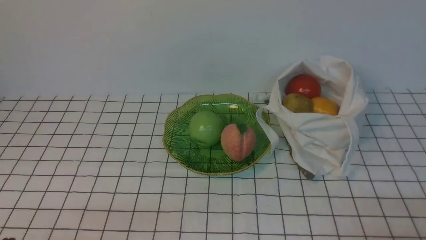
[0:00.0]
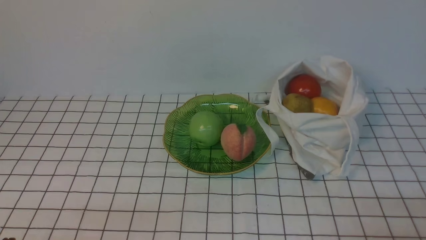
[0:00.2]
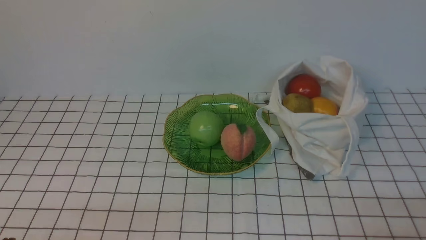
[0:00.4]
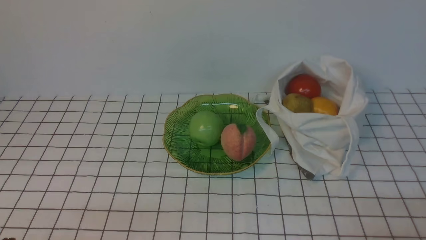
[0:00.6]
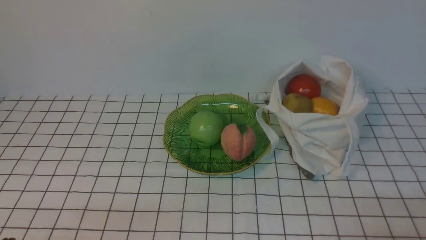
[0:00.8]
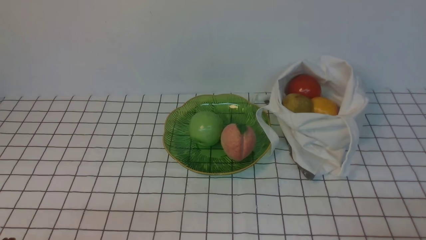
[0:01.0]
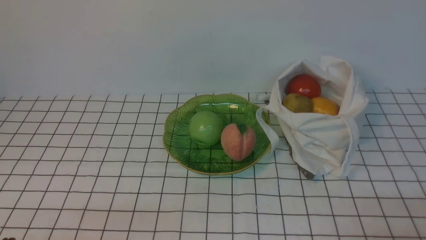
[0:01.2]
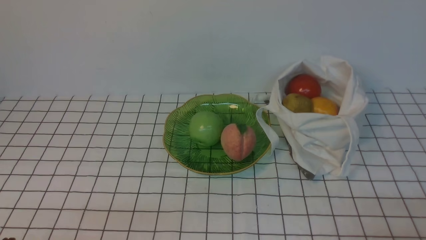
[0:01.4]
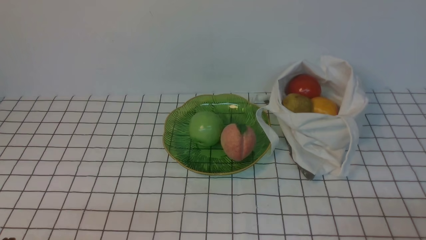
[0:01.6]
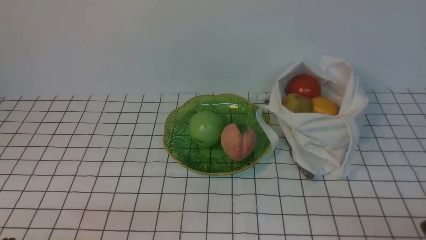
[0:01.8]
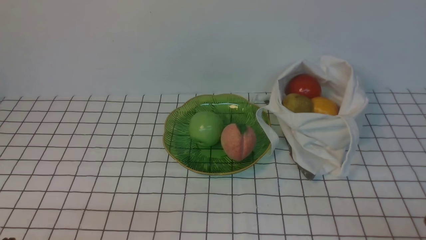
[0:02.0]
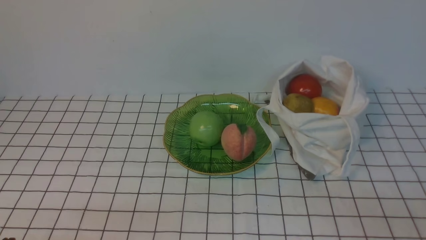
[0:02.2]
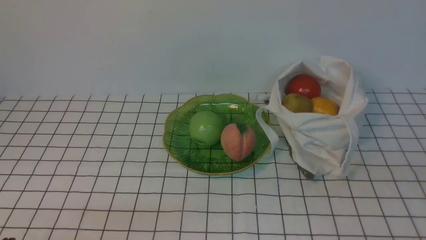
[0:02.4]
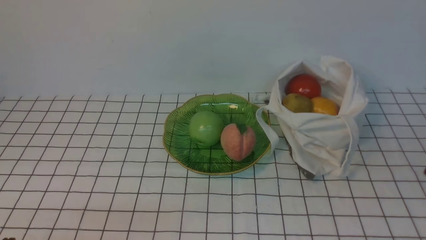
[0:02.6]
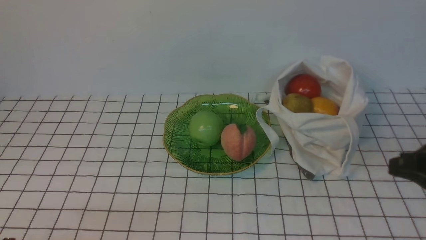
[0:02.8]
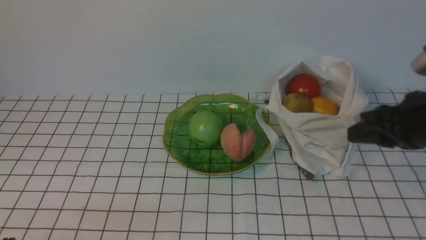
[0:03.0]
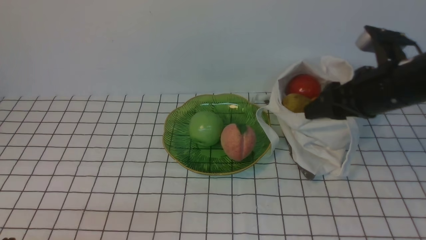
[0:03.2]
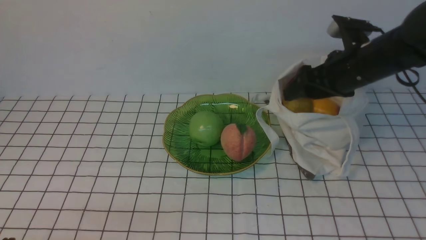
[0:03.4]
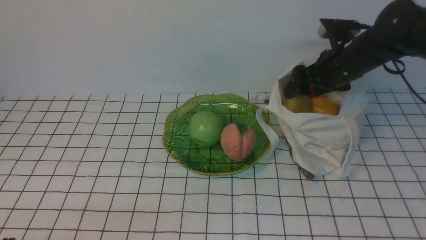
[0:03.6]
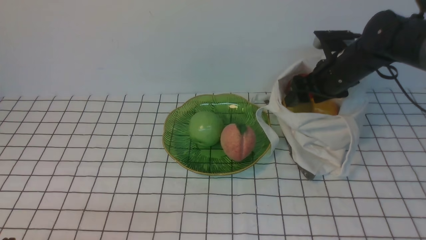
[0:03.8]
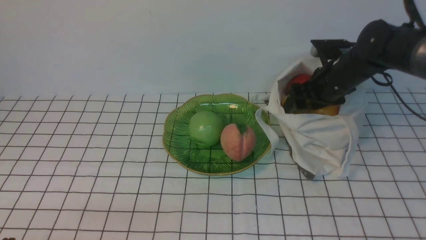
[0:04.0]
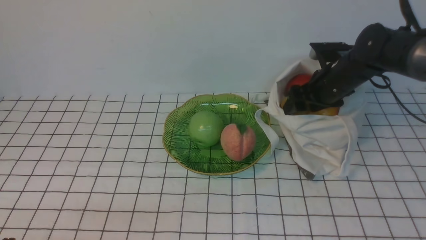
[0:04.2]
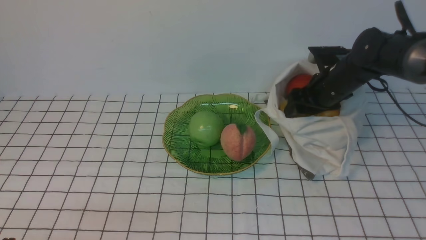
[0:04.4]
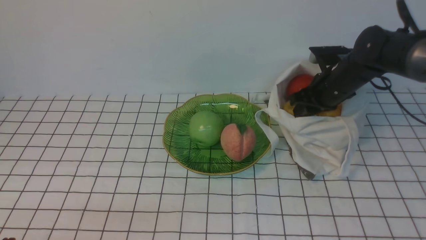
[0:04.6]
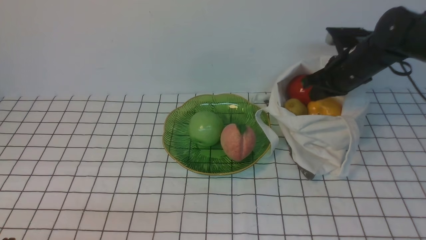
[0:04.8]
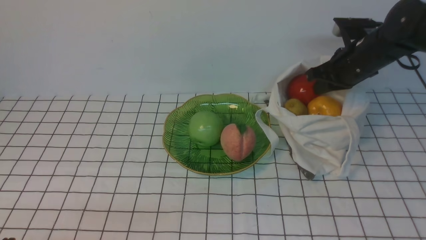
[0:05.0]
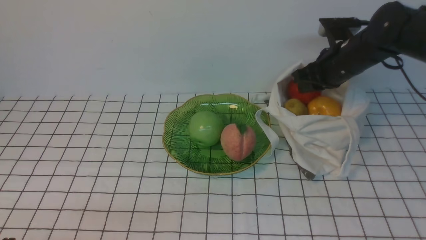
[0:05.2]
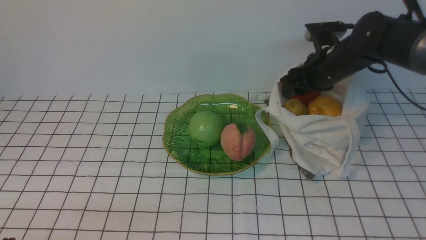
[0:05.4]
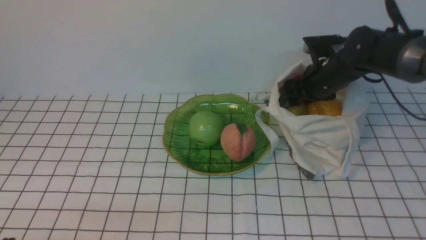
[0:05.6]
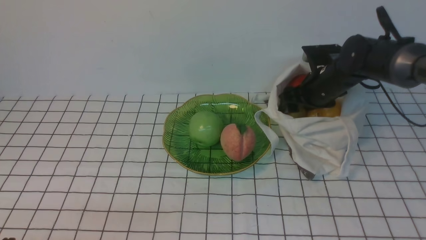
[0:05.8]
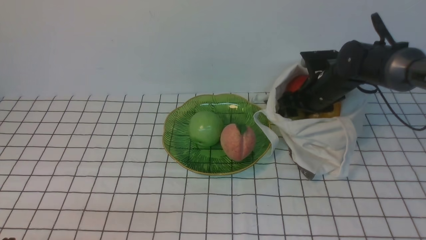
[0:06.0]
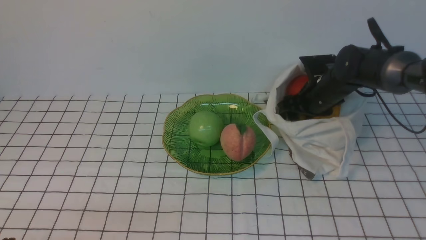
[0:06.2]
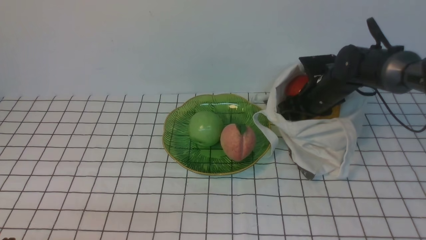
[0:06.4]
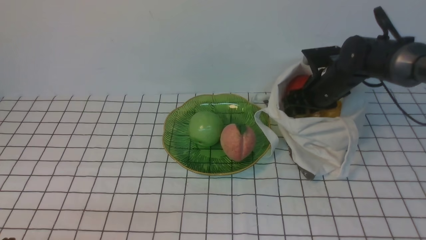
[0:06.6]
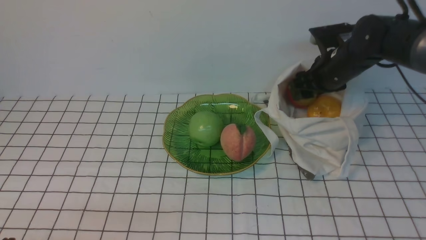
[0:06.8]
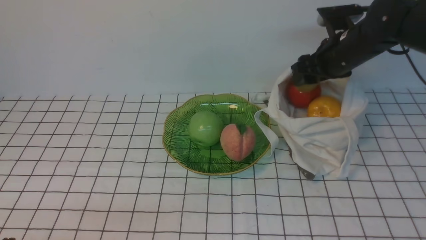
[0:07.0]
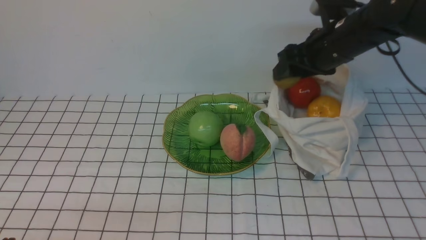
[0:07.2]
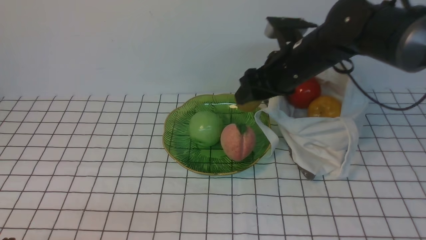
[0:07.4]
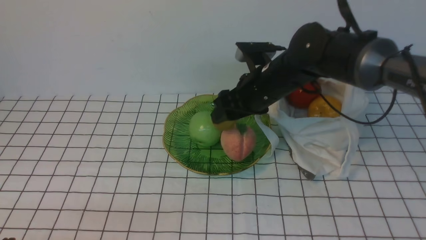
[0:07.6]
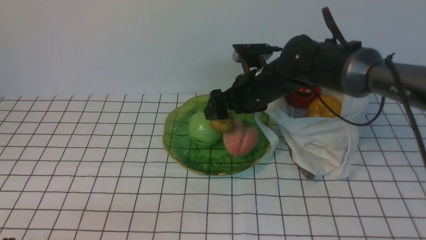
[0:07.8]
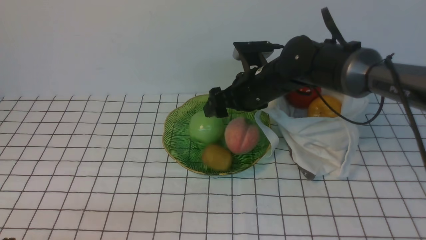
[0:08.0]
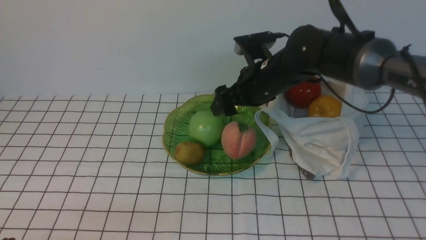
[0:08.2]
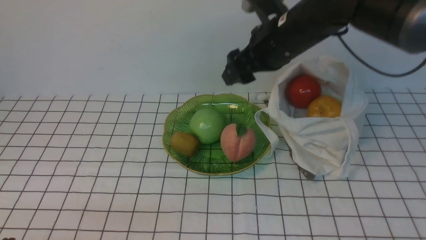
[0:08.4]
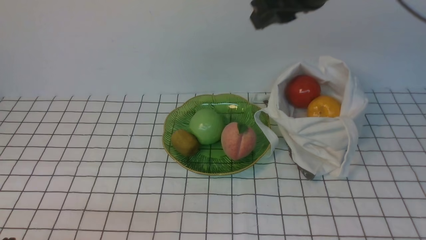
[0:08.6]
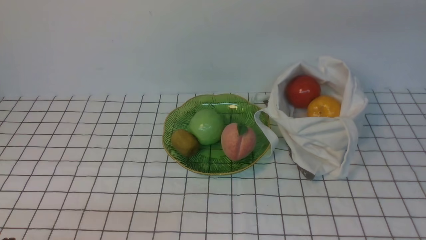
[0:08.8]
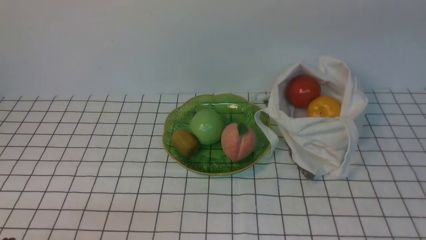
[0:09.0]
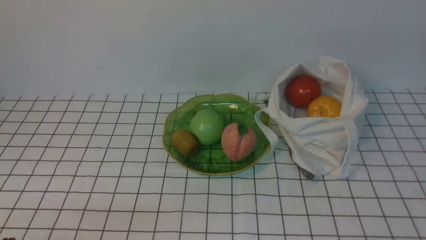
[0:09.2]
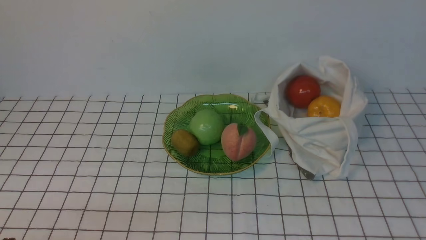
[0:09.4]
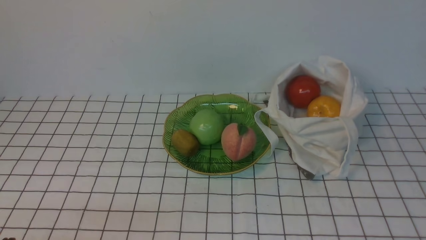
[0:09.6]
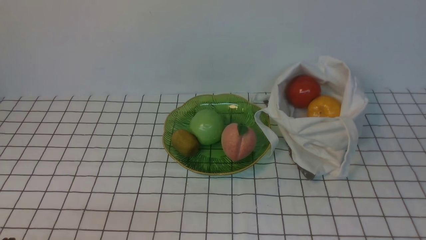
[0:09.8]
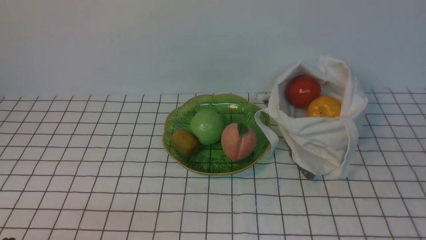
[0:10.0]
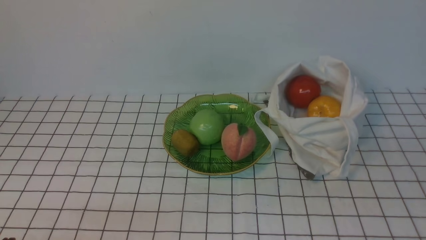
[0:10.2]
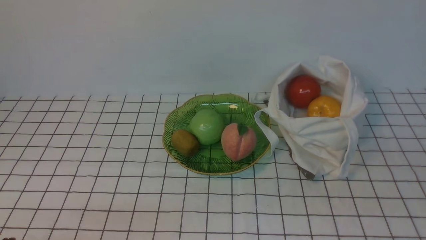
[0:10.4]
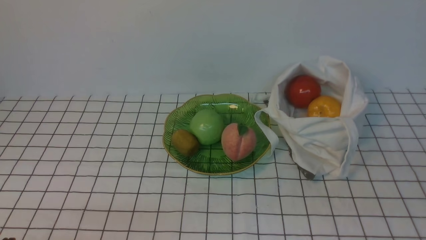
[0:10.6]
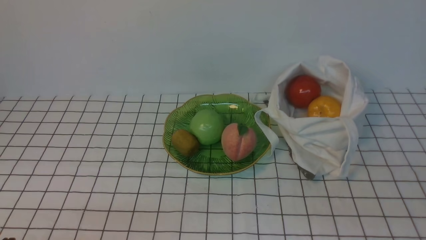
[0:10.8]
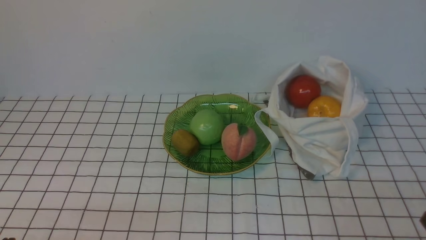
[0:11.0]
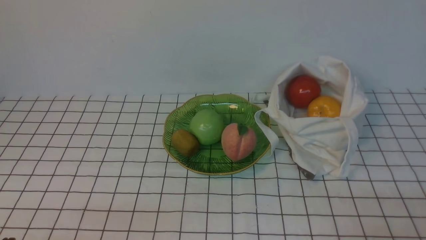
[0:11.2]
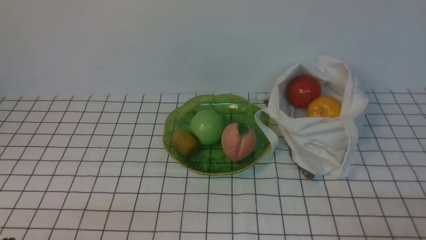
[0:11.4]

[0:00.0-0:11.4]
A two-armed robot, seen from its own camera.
Step, 0:00.0 to 0:06.8: use the right arm to grab a kiwi from the bag.
Step, 0:07.0 to 0:08.2: use the right arm to put the kiwi into the empty plate on the left.
0:01.4 to 0:02.8: The right gripper shifts about 15 cm upward and forward.
0:02.8 to 0:04.2: The right gripper is displaced forward by some 30 cm, and opens its fingers.
0:04.2 to 0:05.6: The right gripper closes, then reopens.
0:05.6 to 0:07.2: The right gripper moves upward, approximately 5 cm.
0:07.2 to 0:08.6: The right gripper travels upward, to the left and backward by about 15 cm.
0:08.6 to 0:10.0: The right gripper goes roughly 35 cm backward and to the right, and closes up.

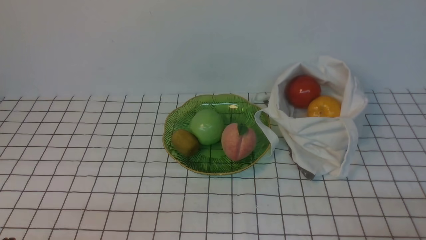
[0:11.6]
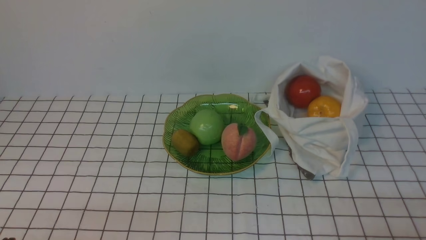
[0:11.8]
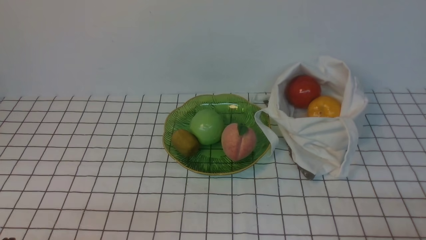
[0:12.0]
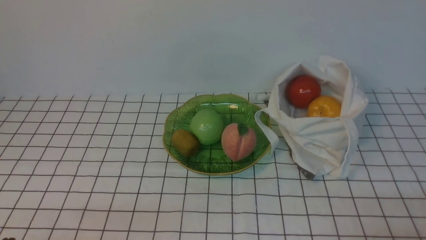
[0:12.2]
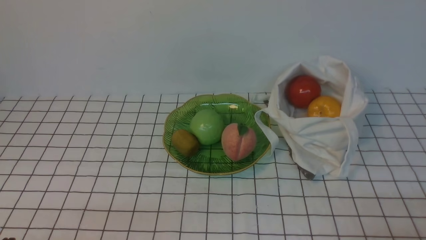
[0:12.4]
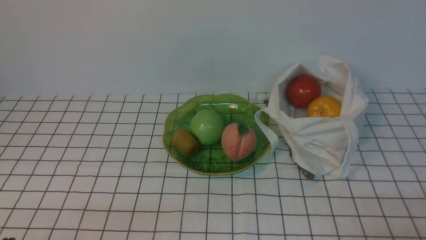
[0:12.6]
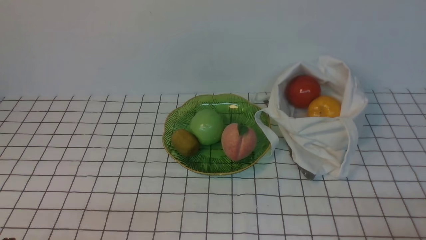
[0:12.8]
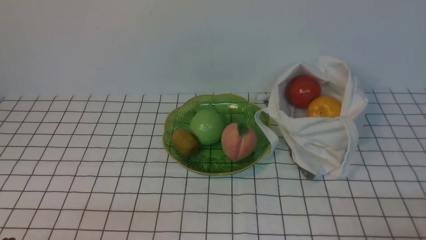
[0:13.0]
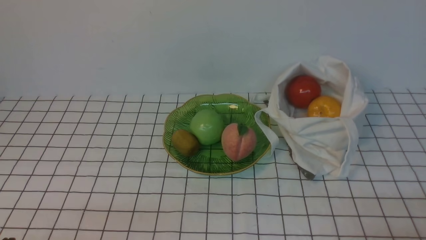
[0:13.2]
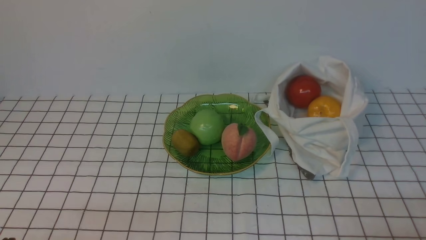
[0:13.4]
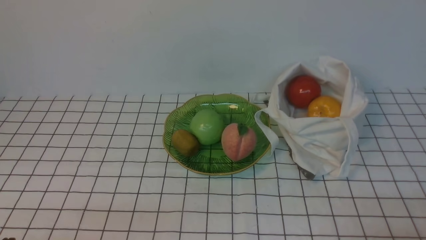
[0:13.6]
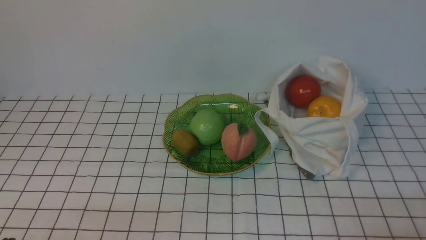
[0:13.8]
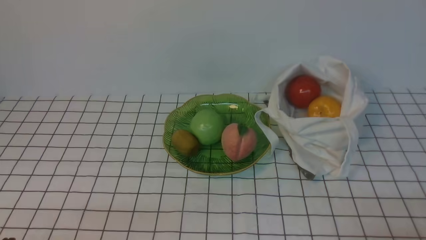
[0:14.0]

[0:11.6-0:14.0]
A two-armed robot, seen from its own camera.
0:12.8 to 0:14.0: The two grippers keep their place.

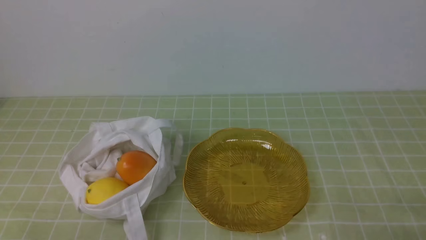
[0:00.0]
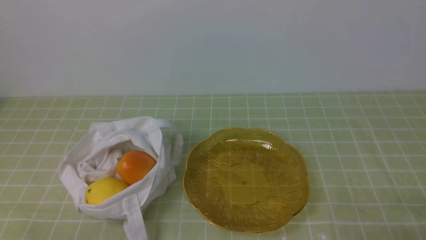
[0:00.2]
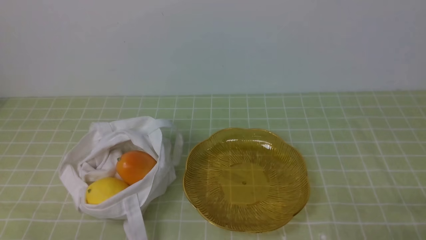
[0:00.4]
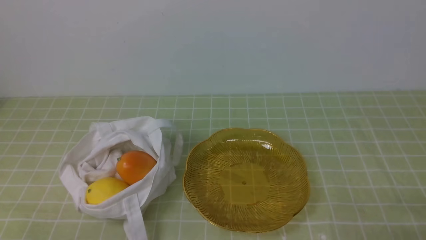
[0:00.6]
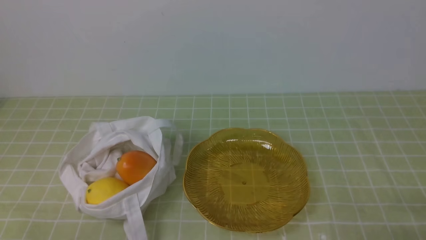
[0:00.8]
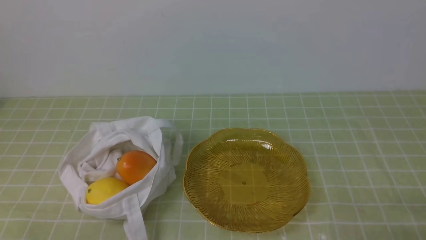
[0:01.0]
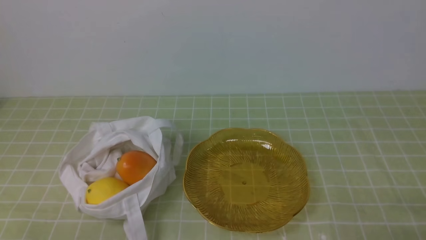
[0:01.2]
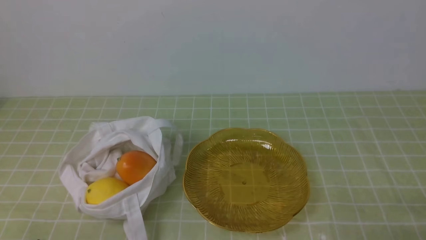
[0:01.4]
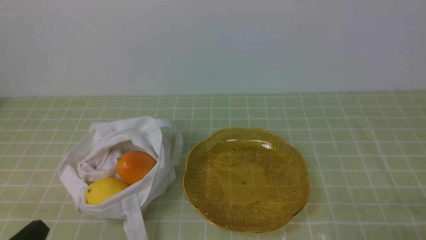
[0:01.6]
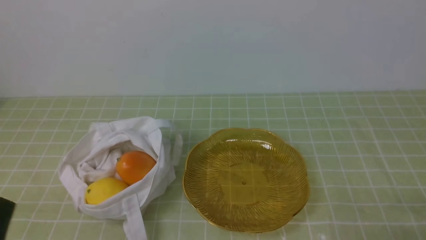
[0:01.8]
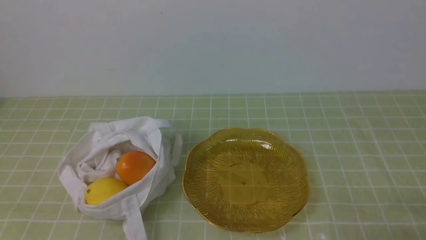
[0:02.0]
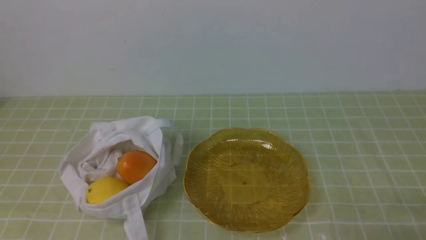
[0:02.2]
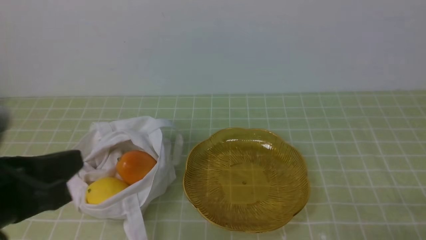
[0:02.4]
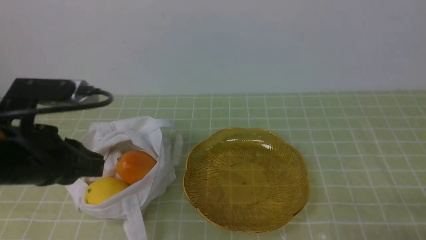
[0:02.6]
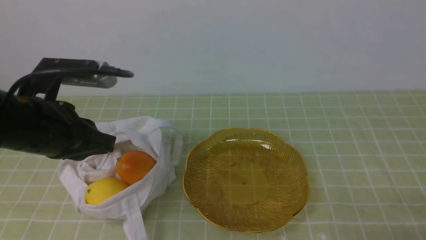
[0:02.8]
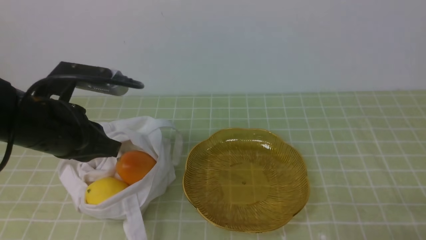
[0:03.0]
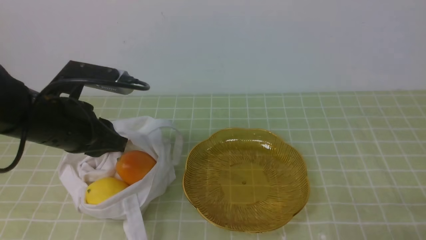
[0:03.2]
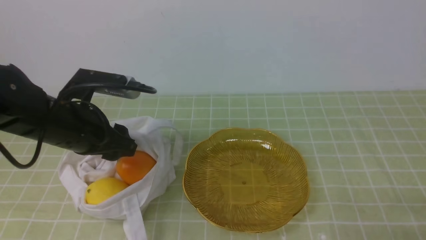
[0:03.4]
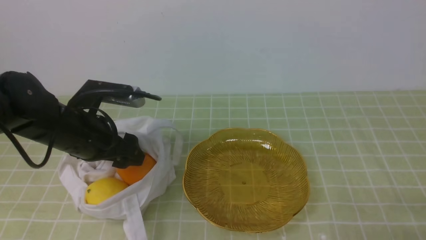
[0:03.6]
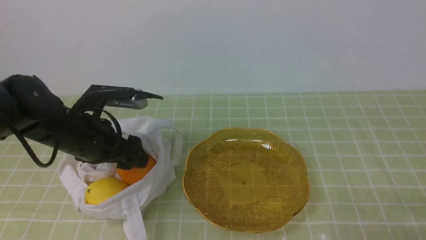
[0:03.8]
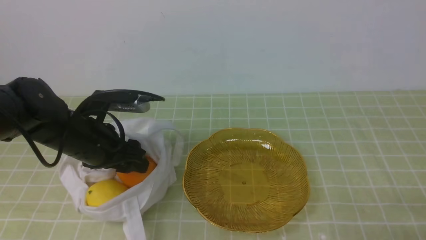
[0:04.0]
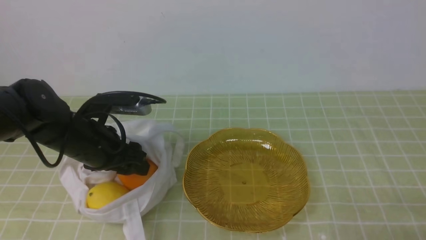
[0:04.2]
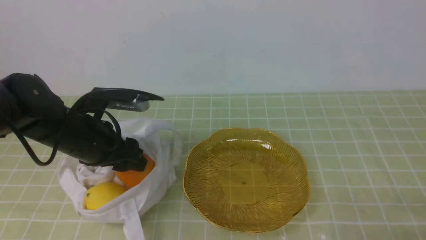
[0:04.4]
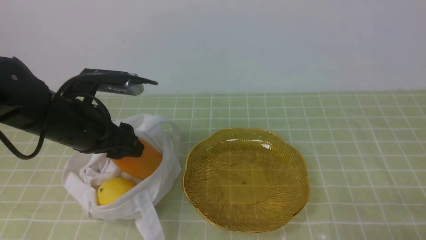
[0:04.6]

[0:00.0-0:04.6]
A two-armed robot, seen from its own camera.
Step, 0:00.0 to 0:04.4: use the left arm to grab a mango from the bag.
0:01.6 to 0:03.0: The left gripper moves forward and upward, some 25 cm.
0:03.0 to 0:04.6: The left gripper moves approximately 5 cm, and opens.
